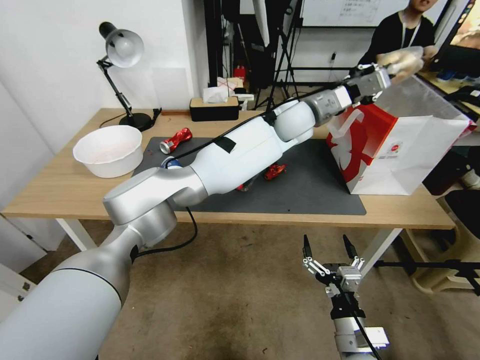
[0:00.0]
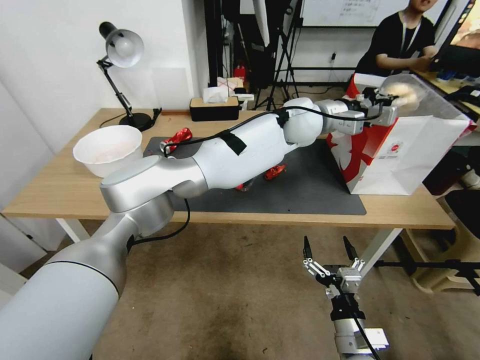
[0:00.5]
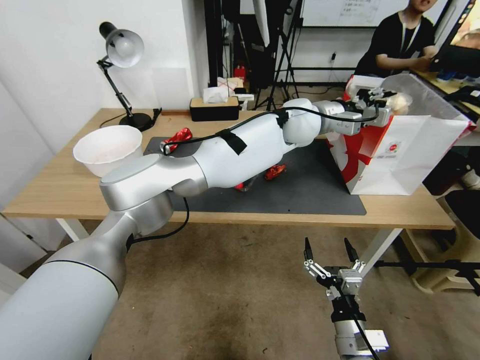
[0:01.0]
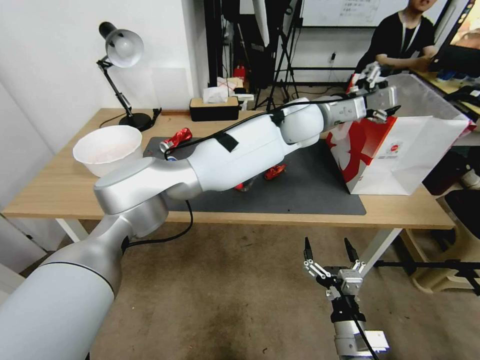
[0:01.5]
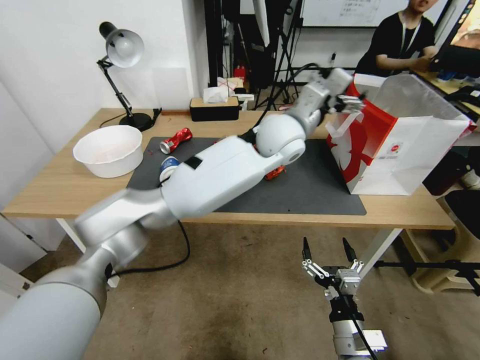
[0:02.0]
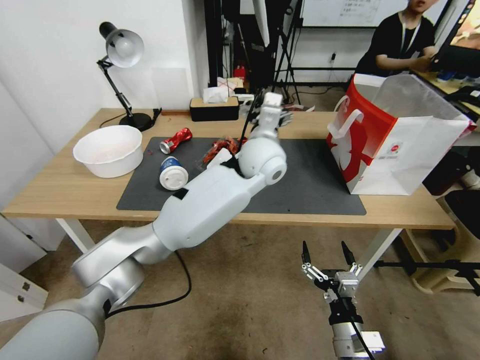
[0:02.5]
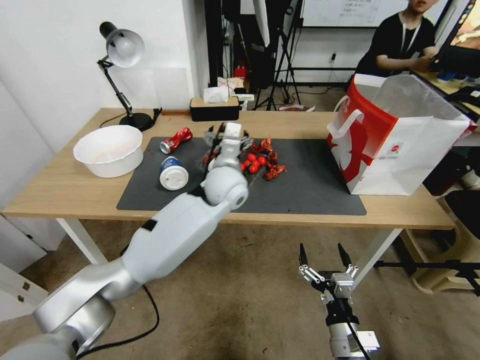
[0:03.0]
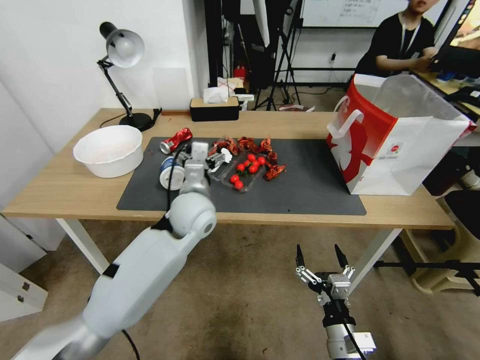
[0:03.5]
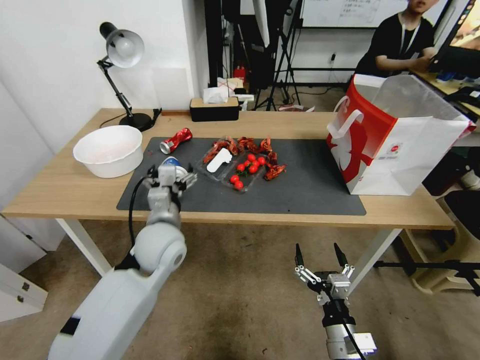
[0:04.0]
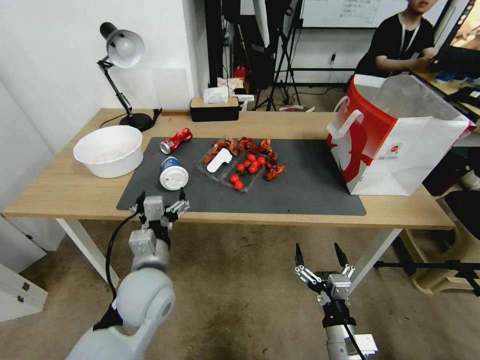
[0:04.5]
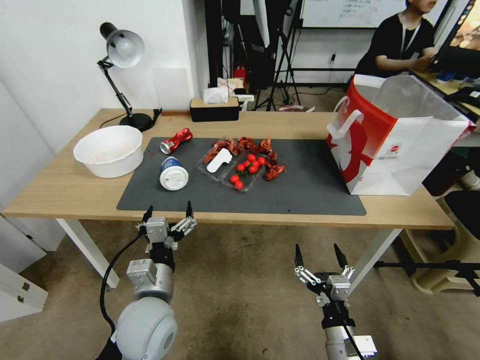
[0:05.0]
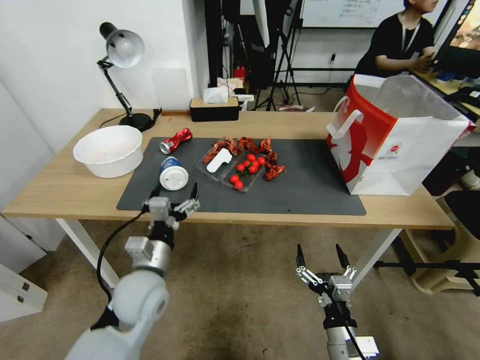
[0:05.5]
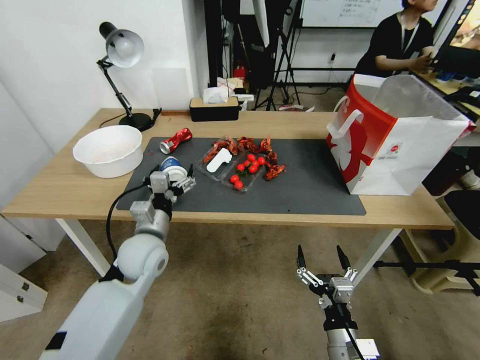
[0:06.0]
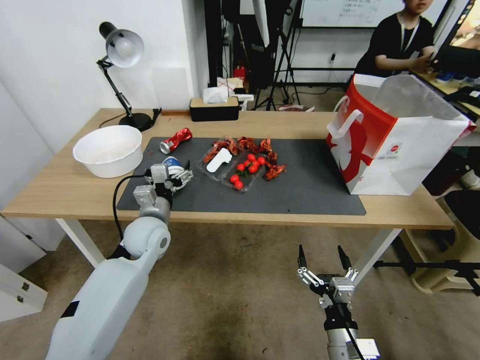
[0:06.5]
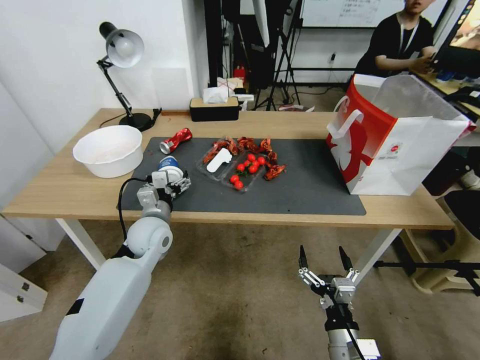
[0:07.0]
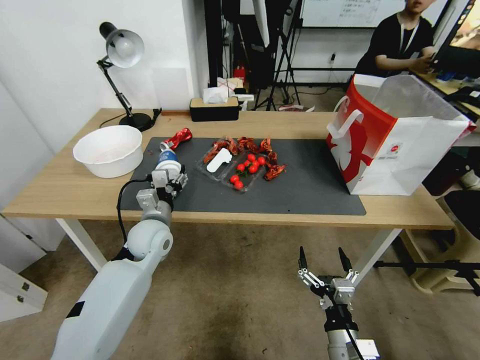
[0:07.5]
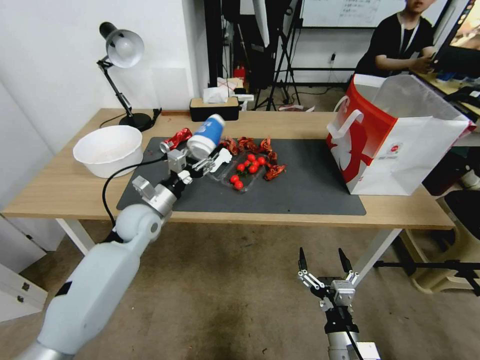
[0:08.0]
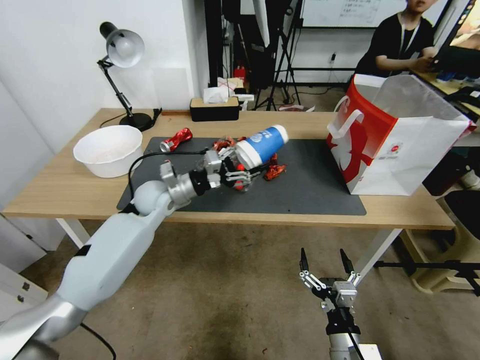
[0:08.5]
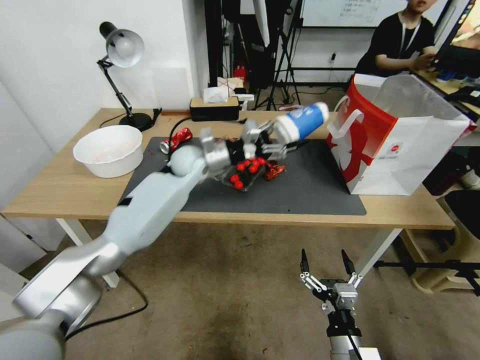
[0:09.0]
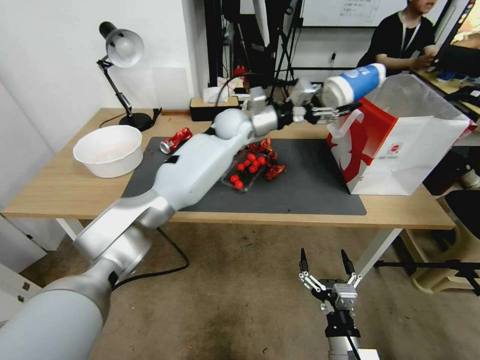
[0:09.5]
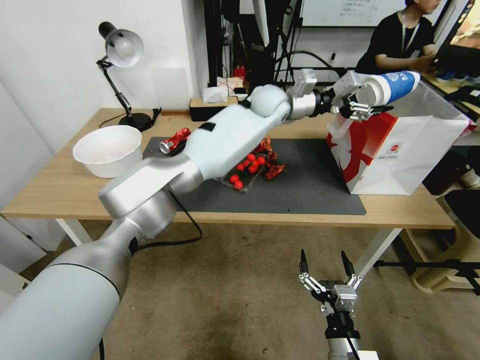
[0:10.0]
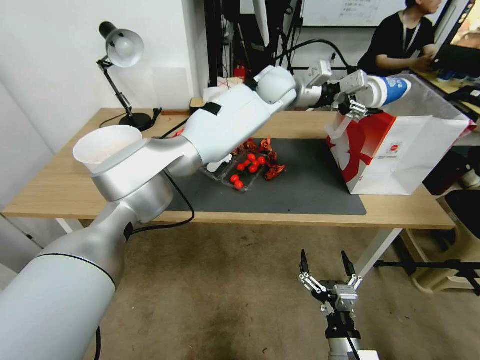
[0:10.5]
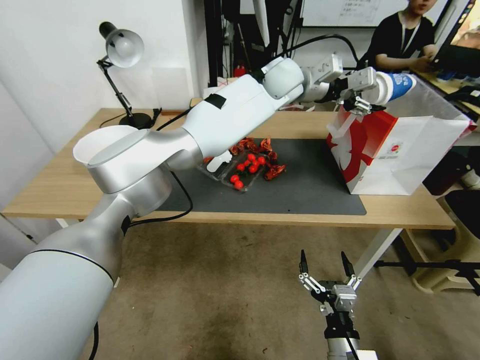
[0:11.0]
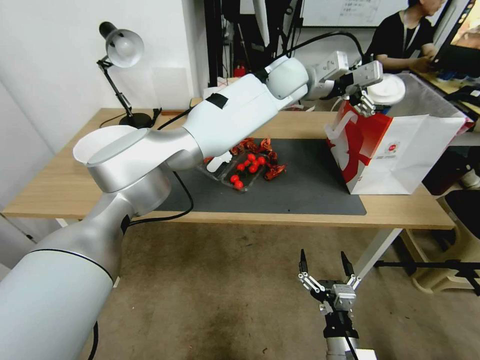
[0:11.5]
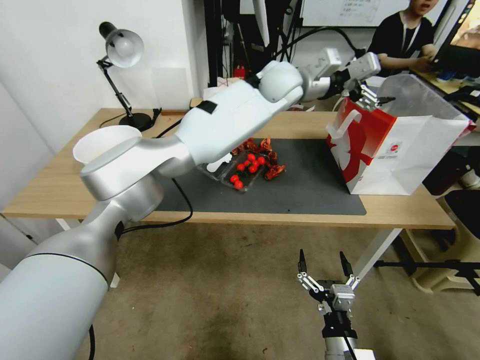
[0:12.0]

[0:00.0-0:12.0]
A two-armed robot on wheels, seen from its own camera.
0:00.0 to 0:02.0: The left gripper travels backward by roughly 5 cm, and opens.
0:02.0 to 0:04.0: The left gripper goes roughly 35 cm to the left, downward and backward.
0:04.0 to 0:06.0: The left gripper goes backward and returns, about 15 cm each way.
0:06.0 to 0:08.0: The left gripper is displaced forward by roughly 10 cm, and closes up.
0:08.0 to 0:10.0: The left gripper is displaced to the right, upward and forward by some 40 cm.
0:10.0 to 0:12.0: The left gripper travels upward by roughly 5 cm, and opens.

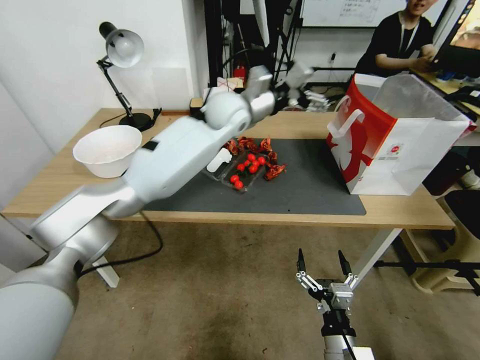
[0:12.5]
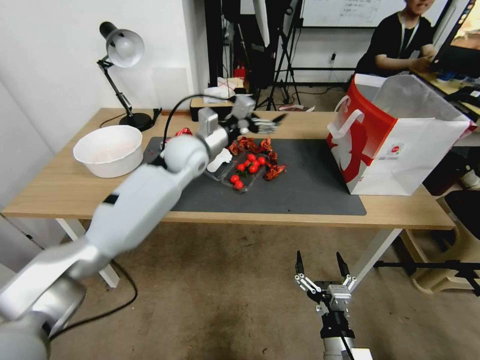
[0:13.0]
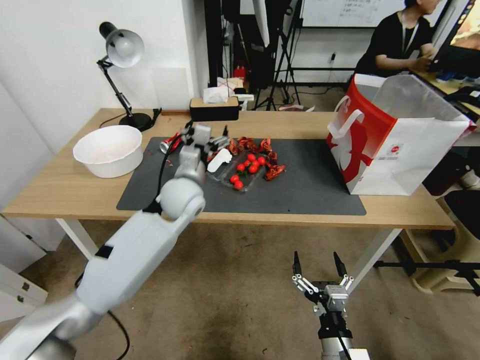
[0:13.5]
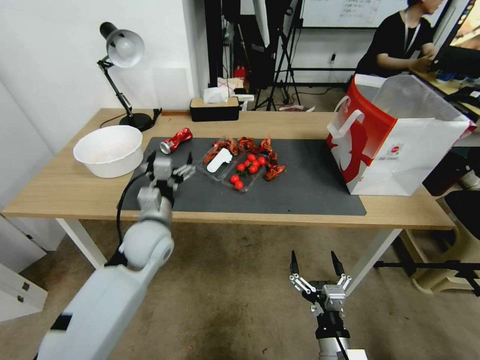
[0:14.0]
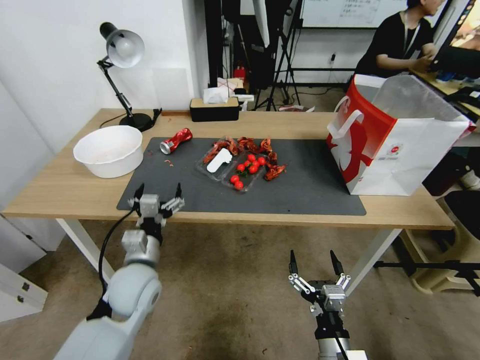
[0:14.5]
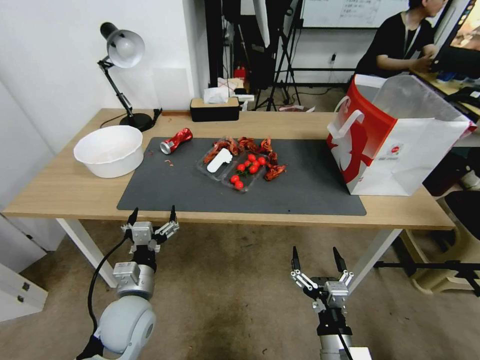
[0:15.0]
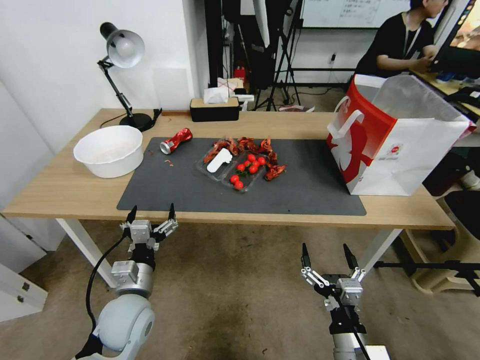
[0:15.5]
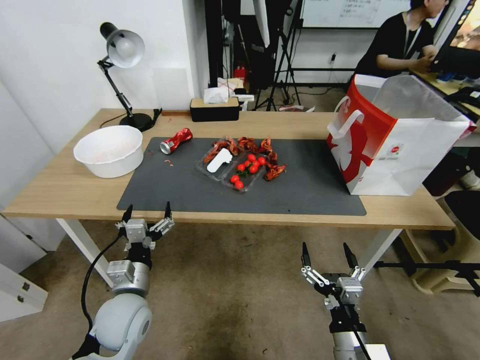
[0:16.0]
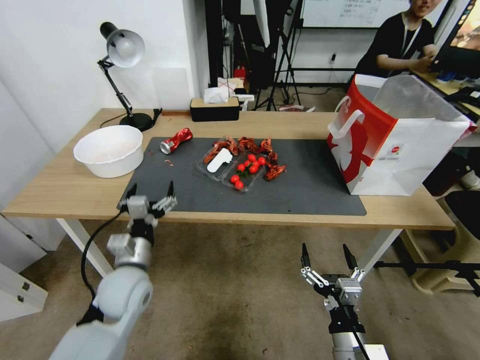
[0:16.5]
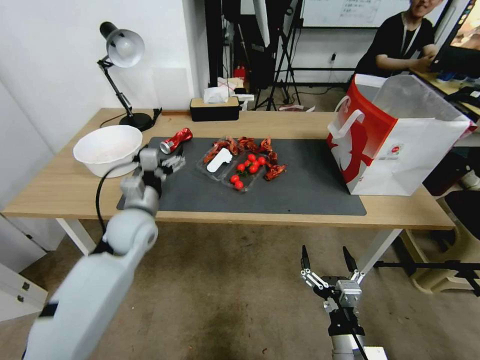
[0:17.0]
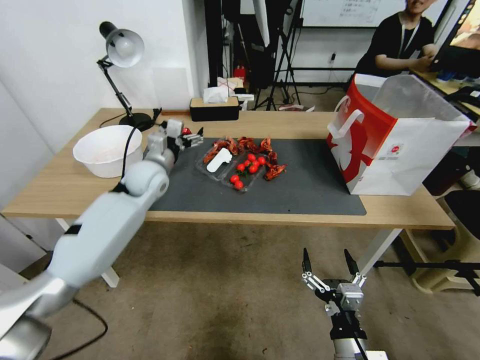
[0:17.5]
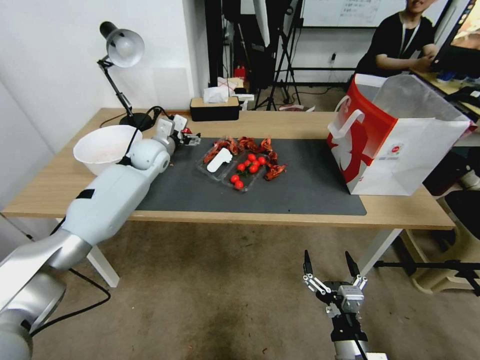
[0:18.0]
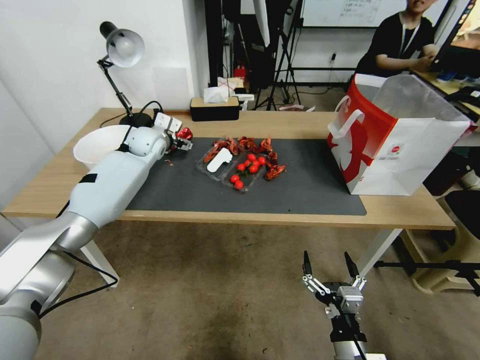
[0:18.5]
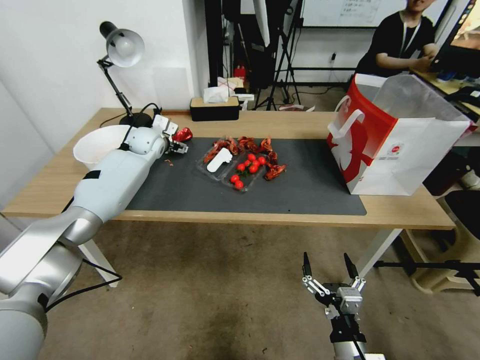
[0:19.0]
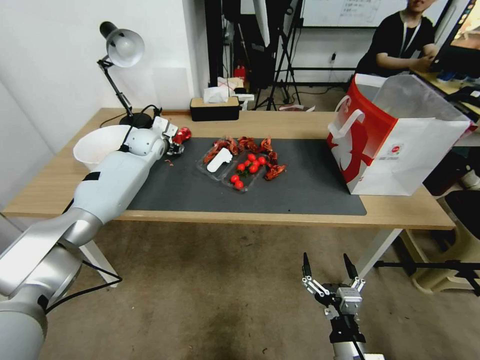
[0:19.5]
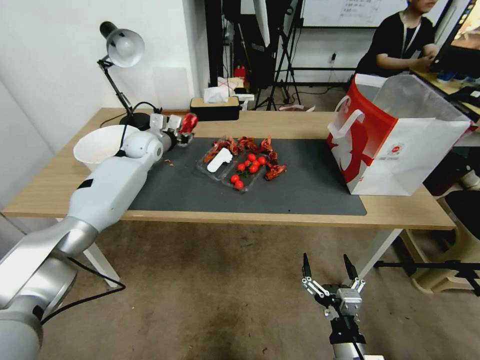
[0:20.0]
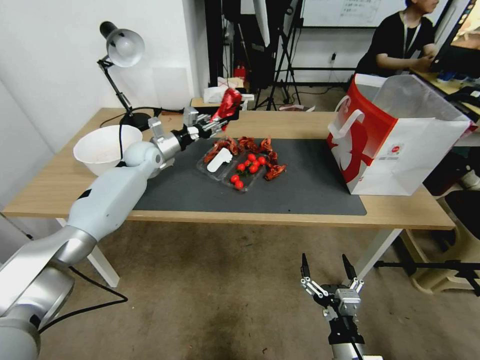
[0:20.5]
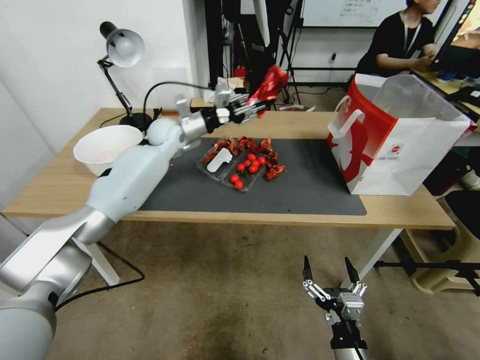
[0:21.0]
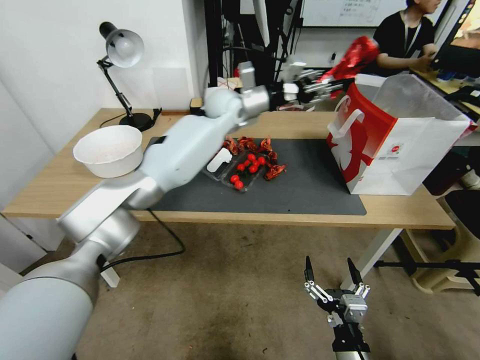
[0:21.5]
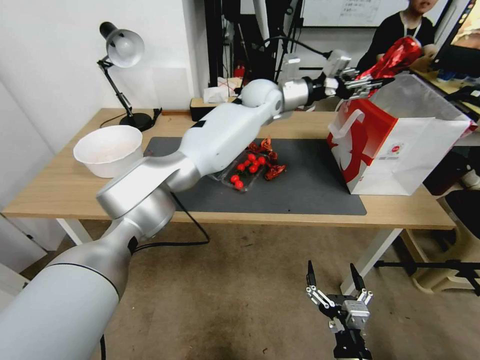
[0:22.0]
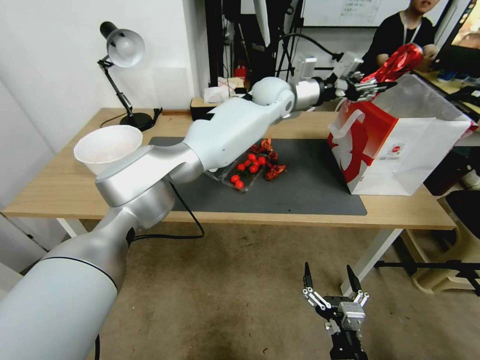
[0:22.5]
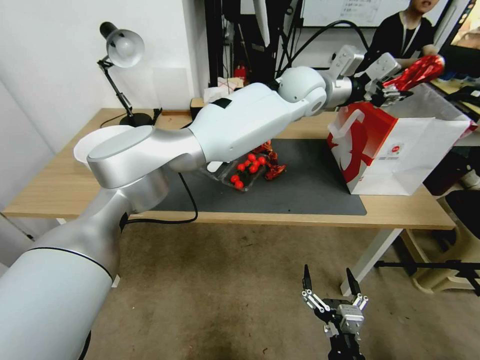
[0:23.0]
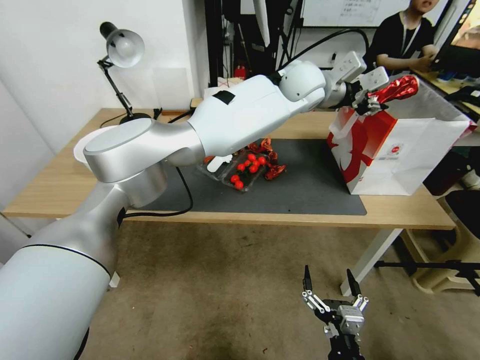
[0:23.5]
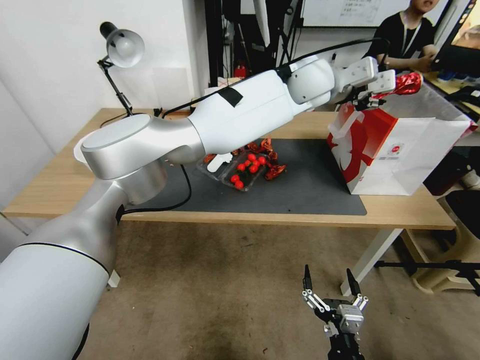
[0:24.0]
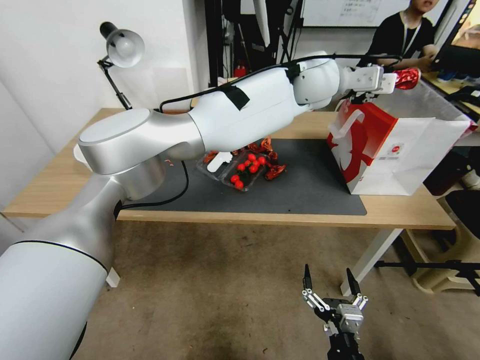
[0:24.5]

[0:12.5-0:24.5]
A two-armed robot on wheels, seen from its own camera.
0:12.5 to 0:14.5: The left gripper shifts approximately 50 cm backward, downward and to the left.
0:14.5 to 0:16.5: The grippers move only a little.
0:16.5 to 0:18.5: The left gripper shifts about 30 cm forward.
0:18.5 to 0:20.5: The left gripper closes.
0:20.5 to 0:22.5: The left gripper shifts about 40 cm to the right and upward.
0:22.5 to 0:24.5: The left gripper shifts about 10 cm backward, upward and to the right.

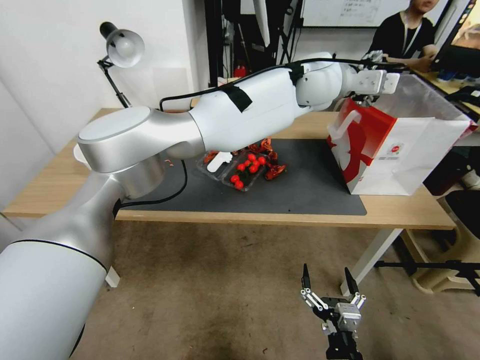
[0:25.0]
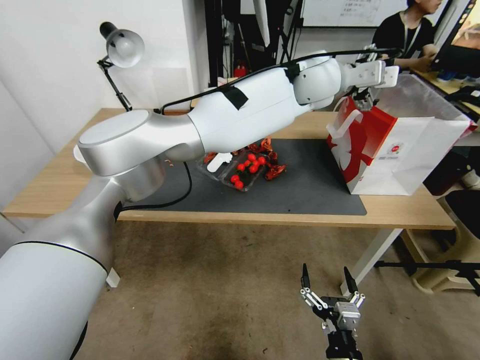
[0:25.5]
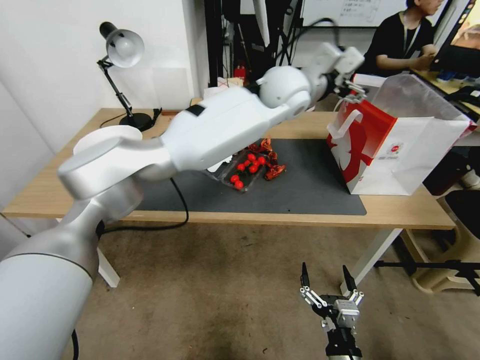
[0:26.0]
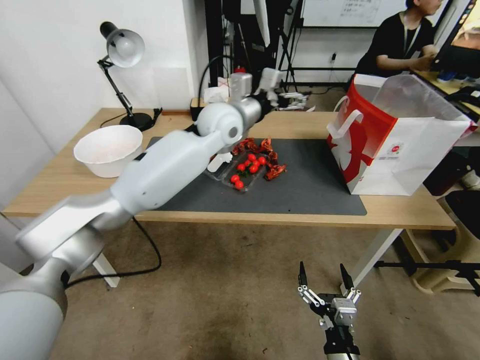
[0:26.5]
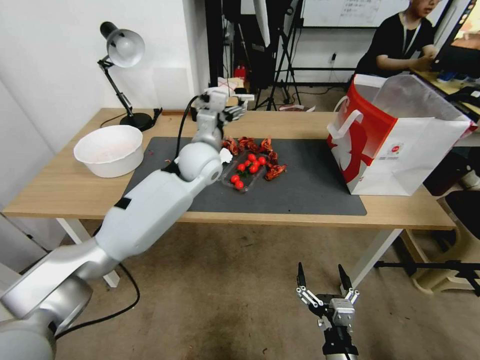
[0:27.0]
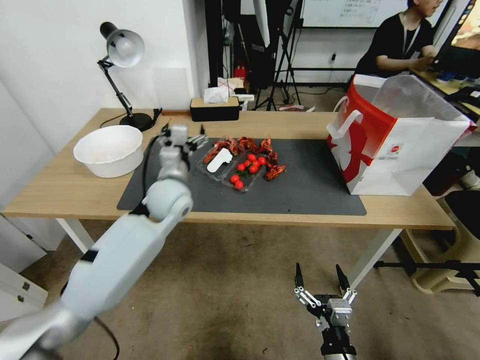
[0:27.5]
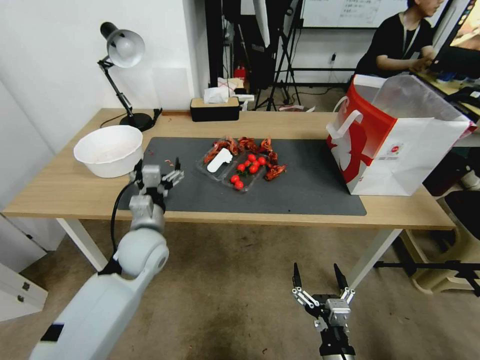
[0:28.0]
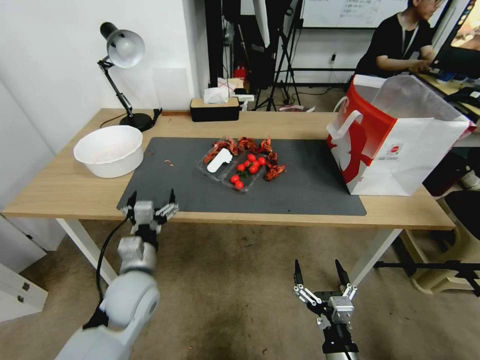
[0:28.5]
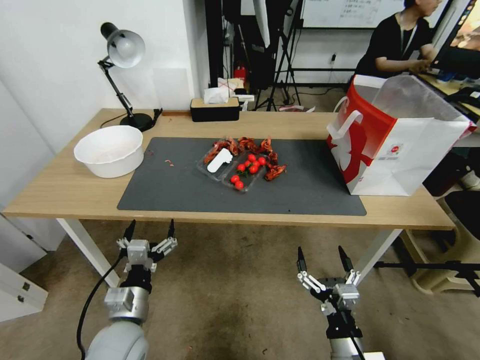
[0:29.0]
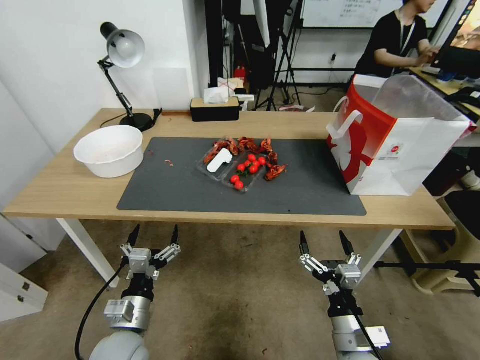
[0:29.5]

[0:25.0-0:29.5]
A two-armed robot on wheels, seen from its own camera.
0:25.0 to 0:27.0: The left gripper shifts roughly 30 cm to the left and downward.
0:27.0 to 0:29.5: The left gripper heads backward, downward and to the left, covering some 40 cm. The right gripper is displaced forward by about 5 cm.
